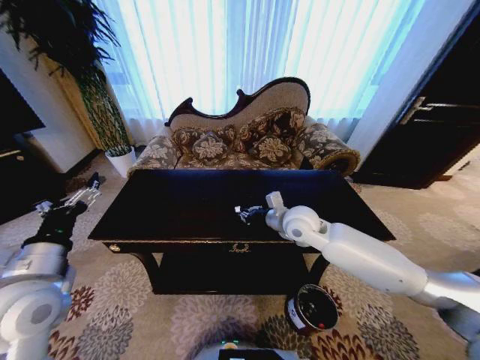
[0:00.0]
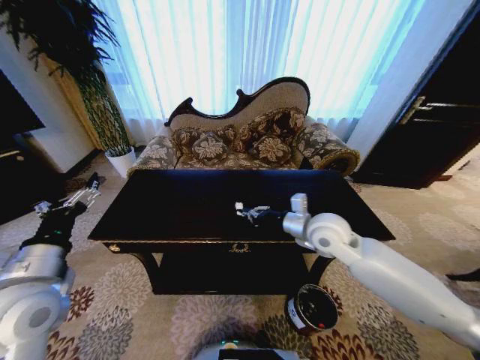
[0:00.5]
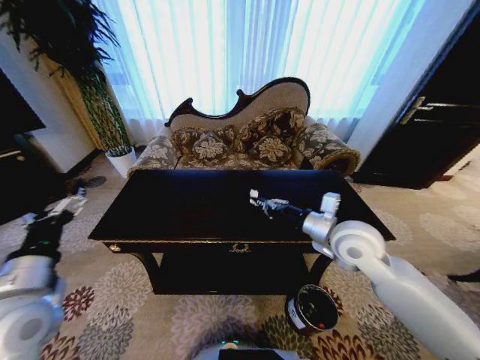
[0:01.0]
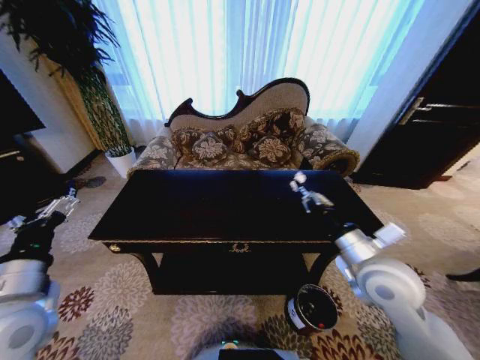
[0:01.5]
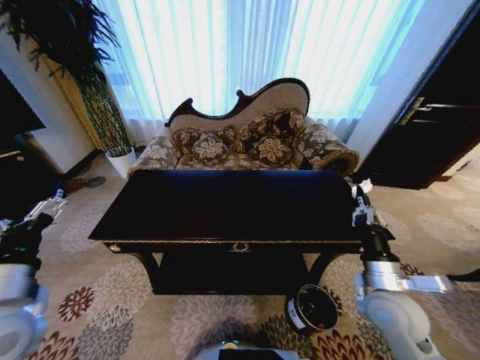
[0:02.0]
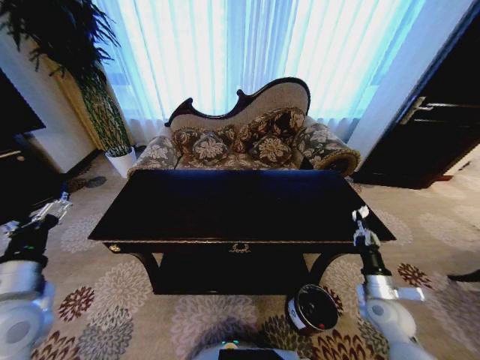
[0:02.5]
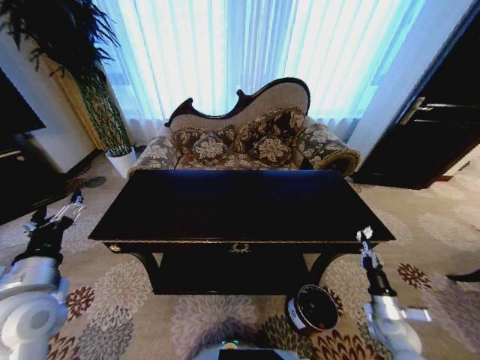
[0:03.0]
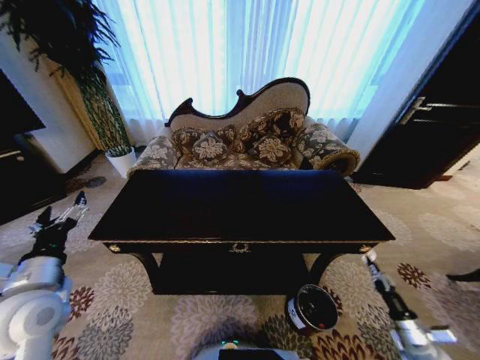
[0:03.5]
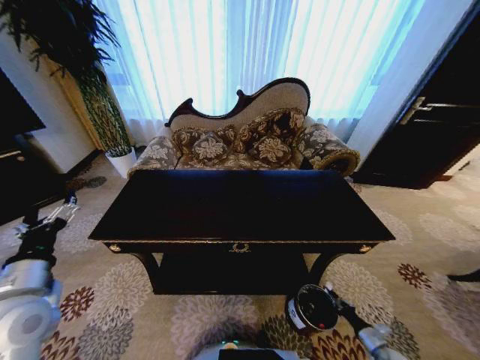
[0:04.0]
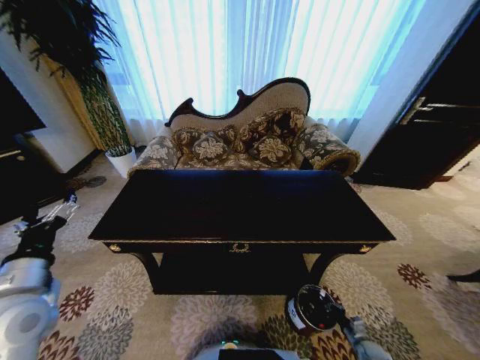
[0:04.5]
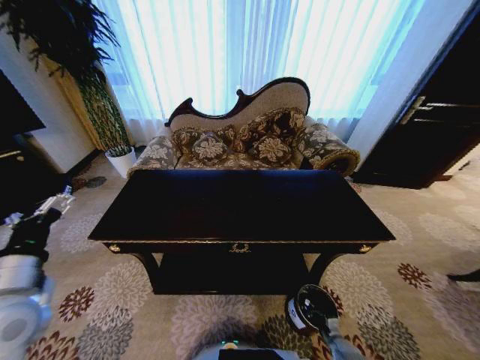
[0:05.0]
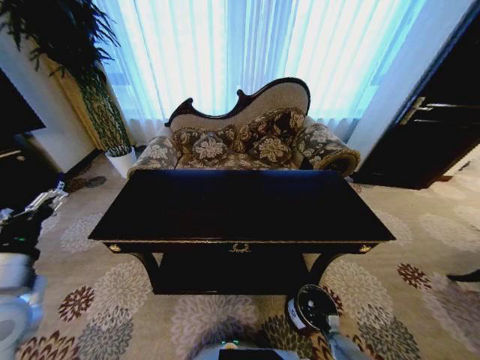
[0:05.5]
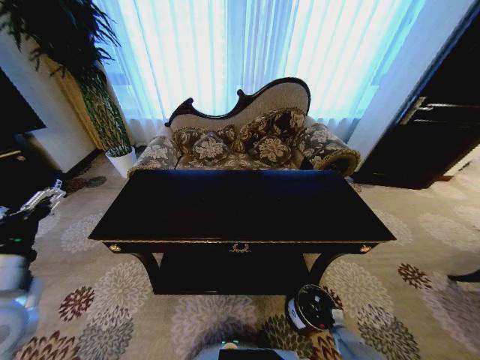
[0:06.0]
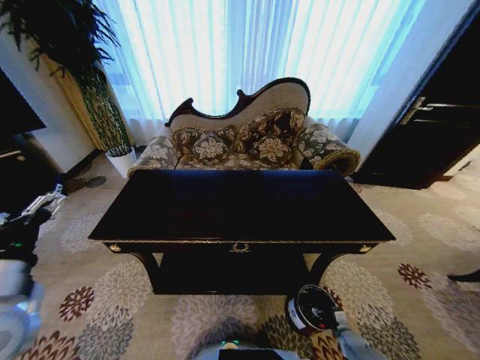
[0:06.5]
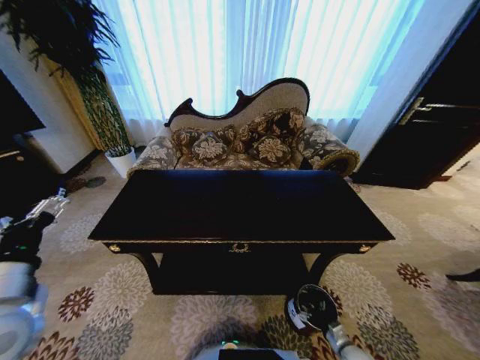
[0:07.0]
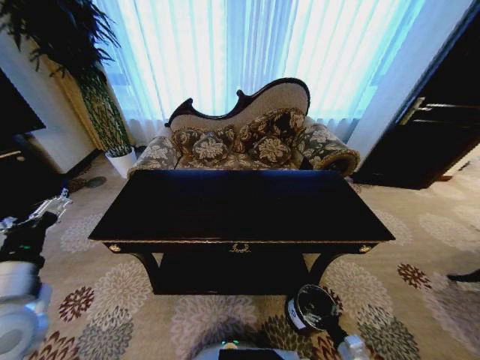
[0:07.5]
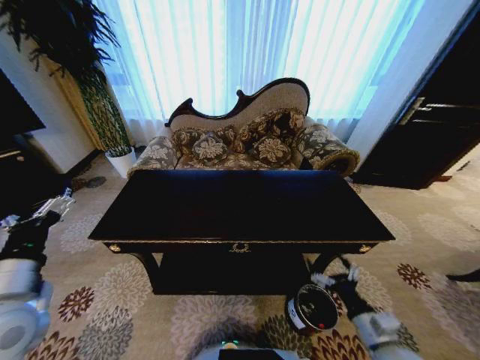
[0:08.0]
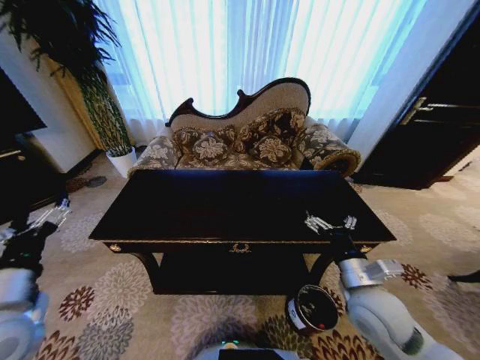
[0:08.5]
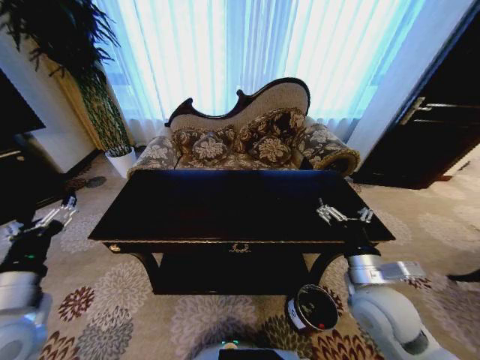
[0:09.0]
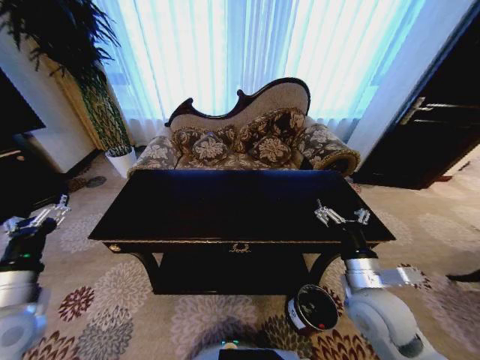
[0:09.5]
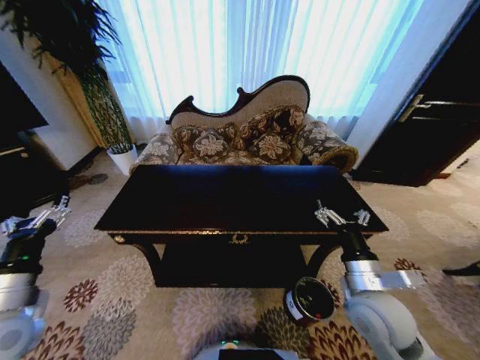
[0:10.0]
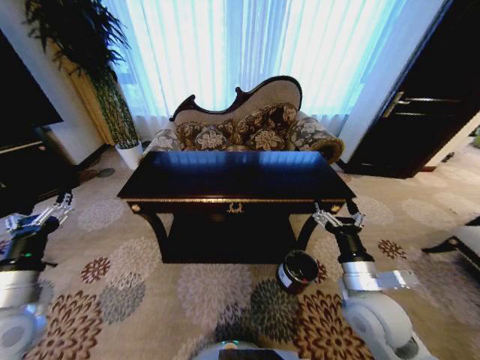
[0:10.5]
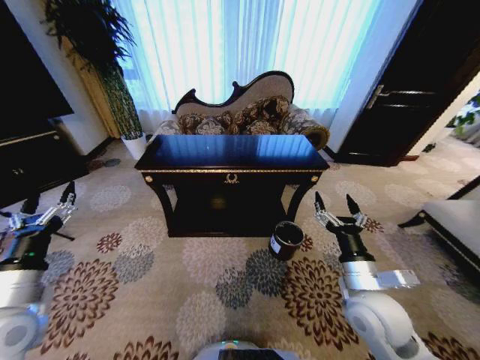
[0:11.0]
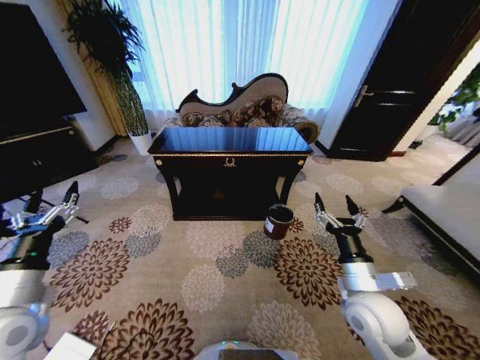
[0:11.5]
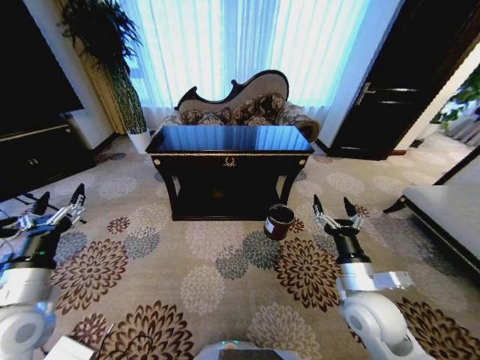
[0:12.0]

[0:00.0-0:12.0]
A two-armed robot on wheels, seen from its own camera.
Task of the whole recording: Move to the front of the table and place the trash on the table into the trash bin.
0:00.0 to 0:02.0: The right gripper moves backward and to the right, some 25 cm.
0:02.0 to 0:04.0: The right gripper heads downward and to the right, covering roughly 40 cm.
0:04.0 to 0:06.0: The right gripper travels to the left, forward and downward by about 10 cm.
0:06.0 to 0:08.0: The right gripper goes about 35 cm upward, and opens up.
0:08.0 to 0:10.0: The left gripper shifts by approximately 5 cm, while the right gripper travels upward, forward and to the left by roughly 15 cm.
